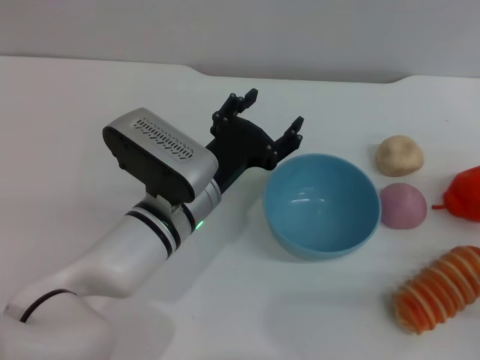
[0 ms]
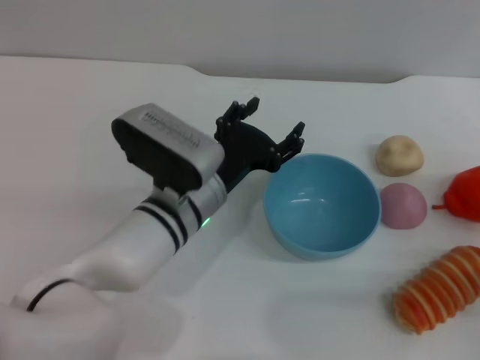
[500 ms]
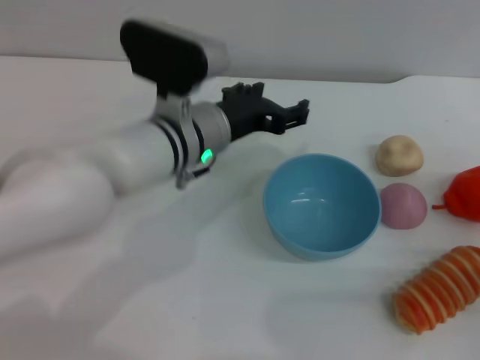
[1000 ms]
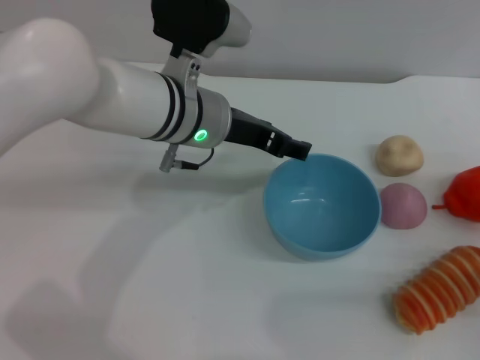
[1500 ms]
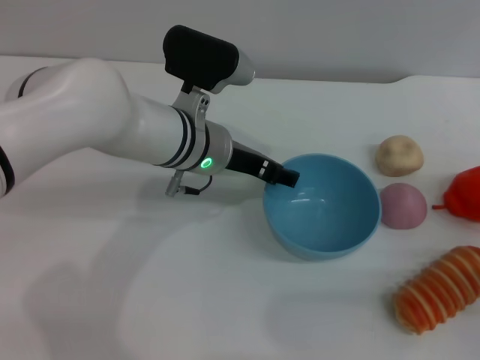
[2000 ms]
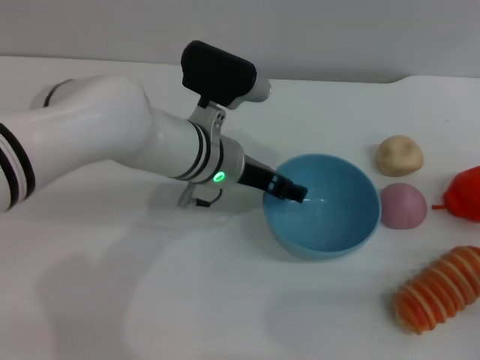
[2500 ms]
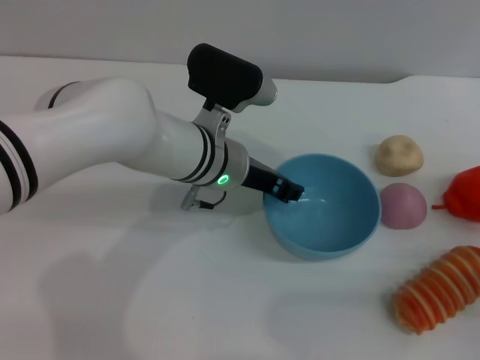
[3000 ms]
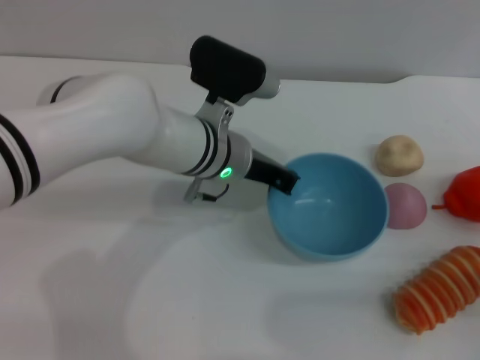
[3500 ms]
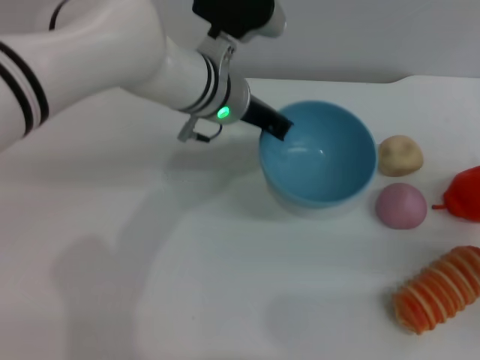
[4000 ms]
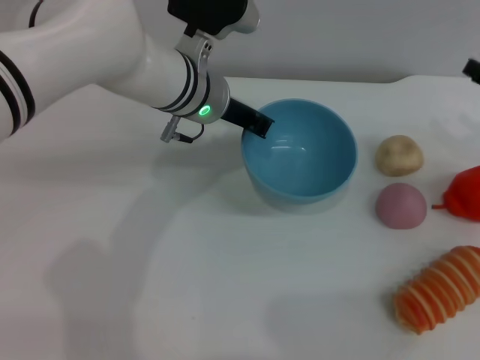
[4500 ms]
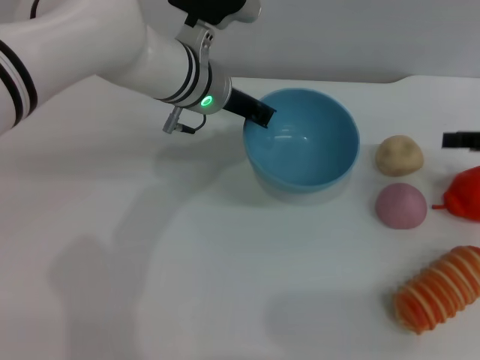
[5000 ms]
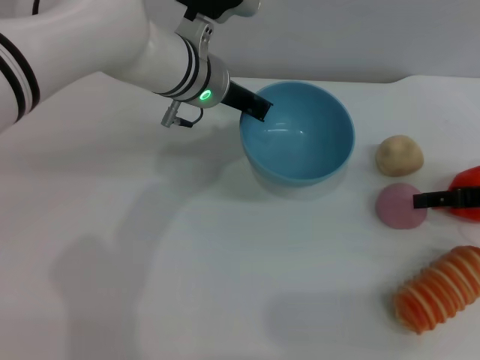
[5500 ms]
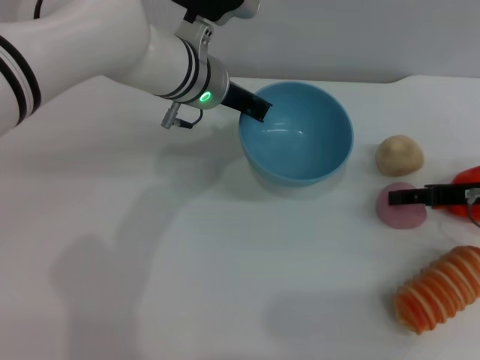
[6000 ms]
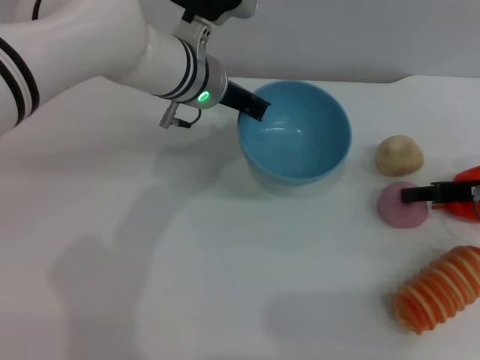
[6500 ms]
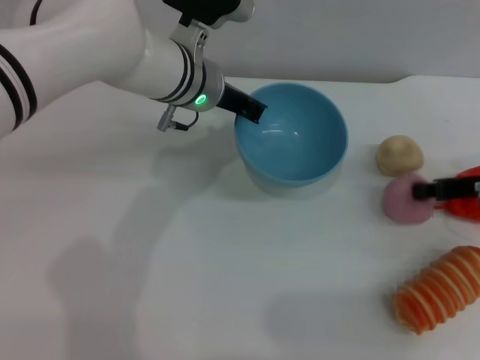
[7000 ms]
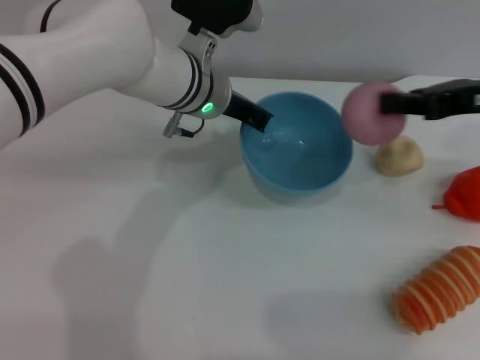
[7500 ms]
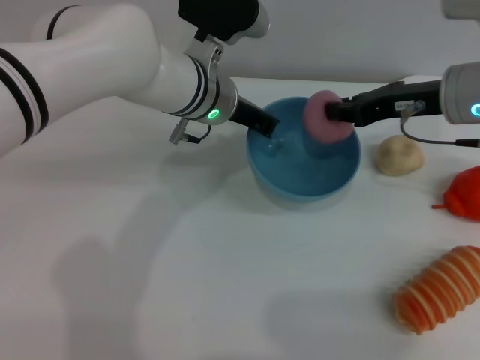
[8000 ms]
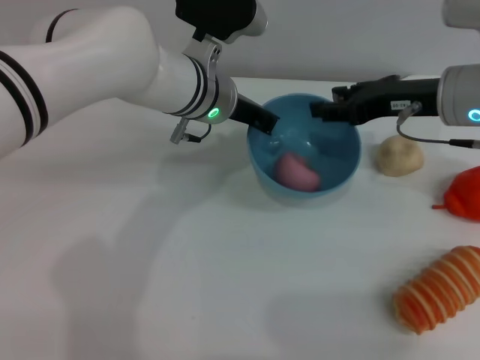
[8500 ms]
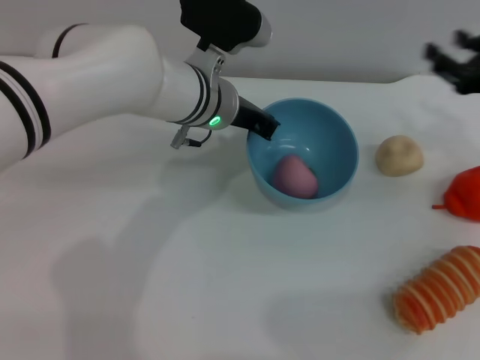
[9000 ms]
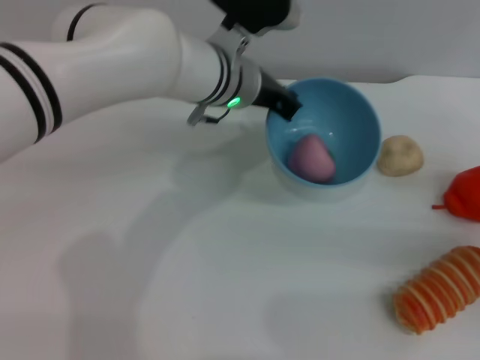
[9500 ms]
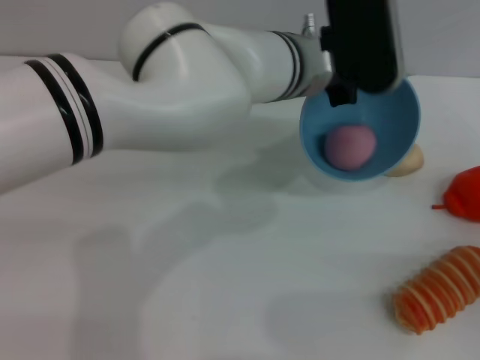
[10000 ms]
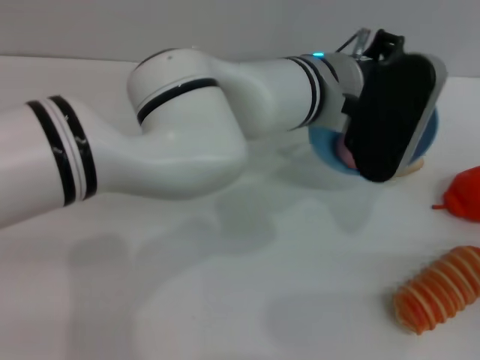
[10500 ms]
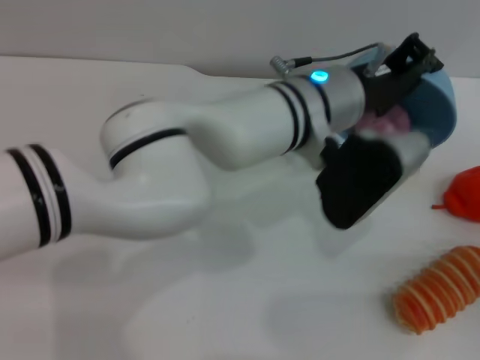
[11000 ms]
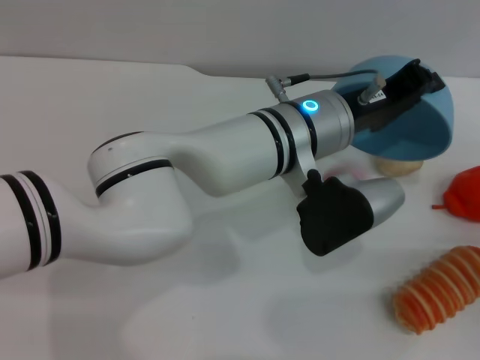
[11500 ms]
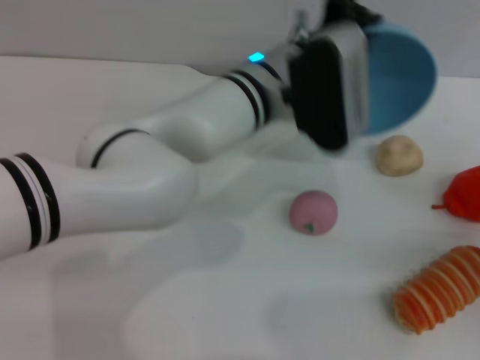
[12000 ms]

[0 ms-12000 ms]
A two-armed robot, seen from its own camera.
Task of the whole recording: put the peach into the blue bowl and pour it out repeatedly.
Step, 0 ms to 4500 ms: Pick up the bowl with the left gripper.
Step, 5000 ms to 7000 ms: Pick up the peach with the right gripper.
Step, 7500 ms to 8500 ms: Place the peach into the bowl.
Step, 9000 ms to 11500 ms: Pour the peach out of bowl.
0 ms to 2000 ms: The left gripper travels forward by some 10 cm.
2000 ms to 4000 ms: The left gripper changes place by some 5 cm, and closes up.
4000 ms to 6000 ms: The right gripper is displaced forward and upward by some 10 cm.
6000 ms to 8000 ms: The right gripper moves to the left and upward, about 10 cm, and closes up.
8000 ms to 10000 ms: The right gripper heads to the right, backward and downward, covering roughly 25 cm, and opens up. Meanwhile the left gripper heads to the right, covering some 10 cm.

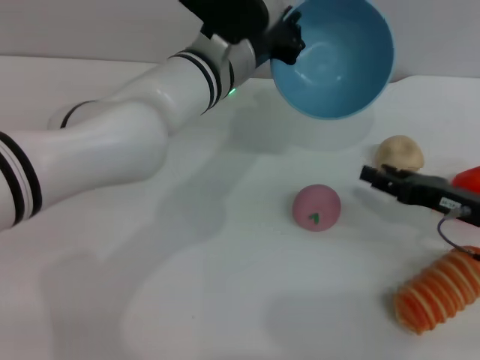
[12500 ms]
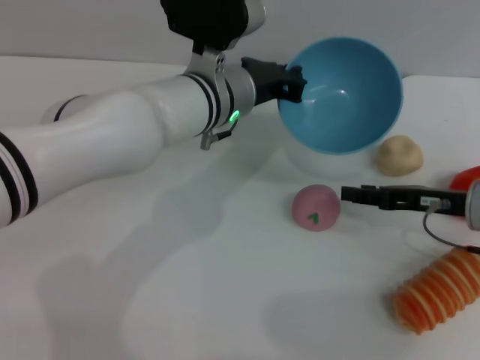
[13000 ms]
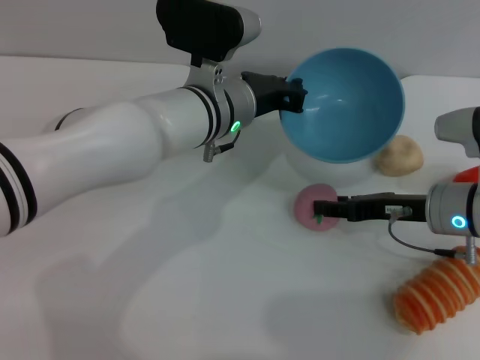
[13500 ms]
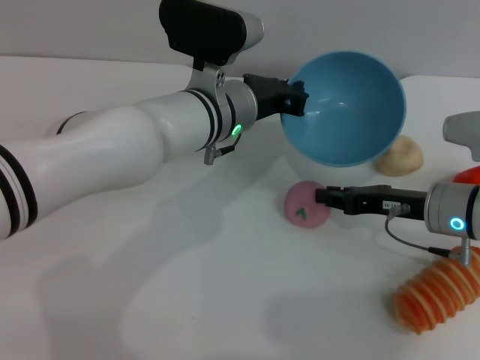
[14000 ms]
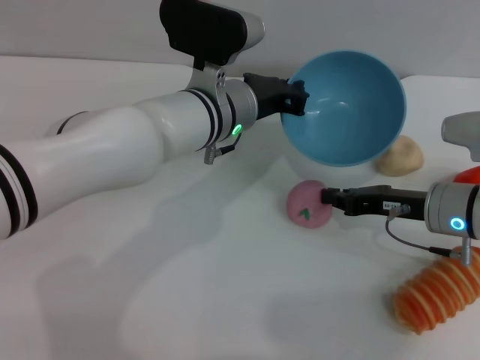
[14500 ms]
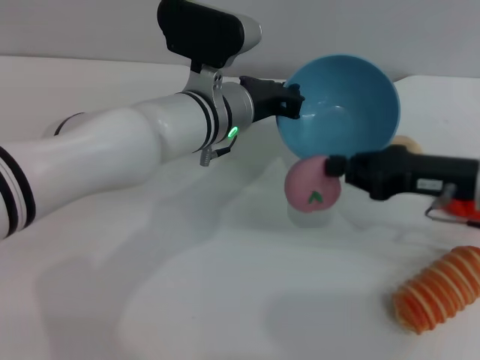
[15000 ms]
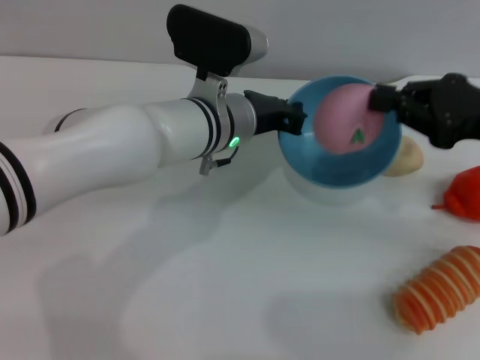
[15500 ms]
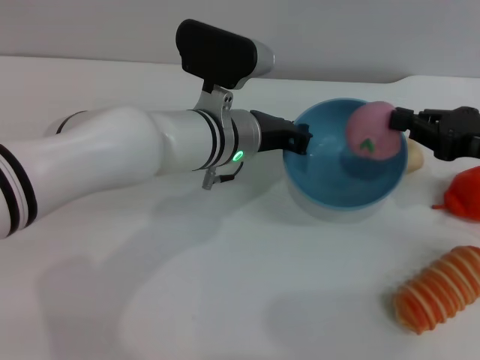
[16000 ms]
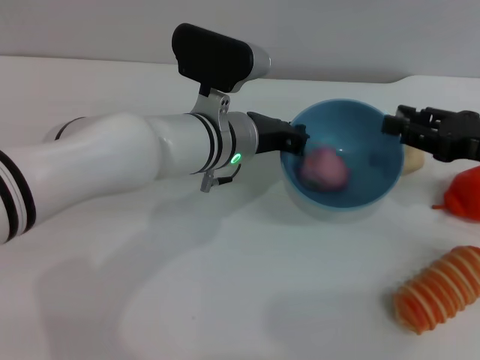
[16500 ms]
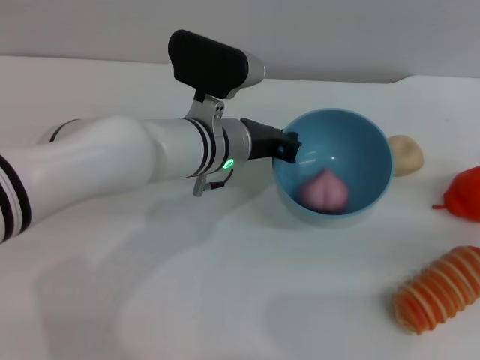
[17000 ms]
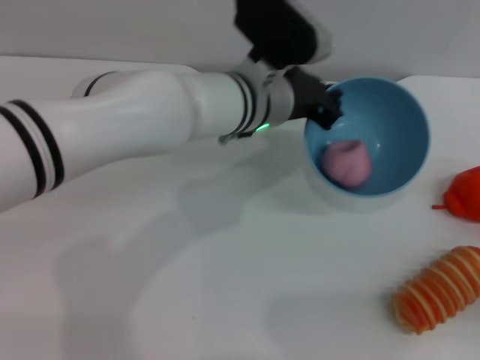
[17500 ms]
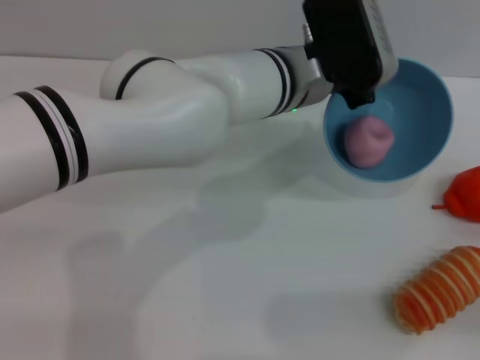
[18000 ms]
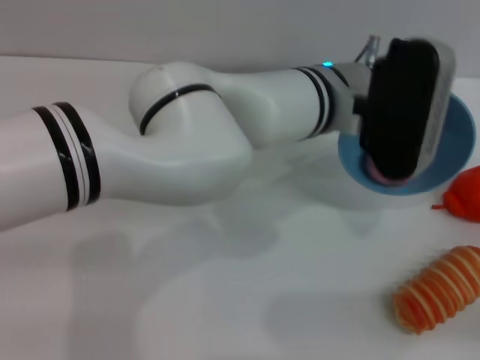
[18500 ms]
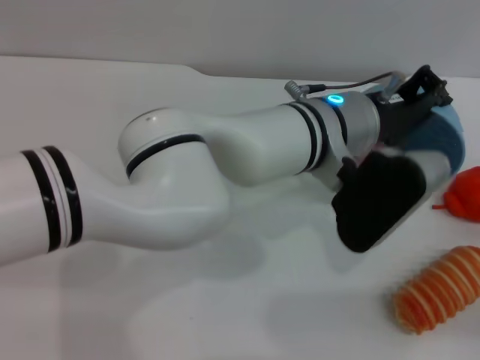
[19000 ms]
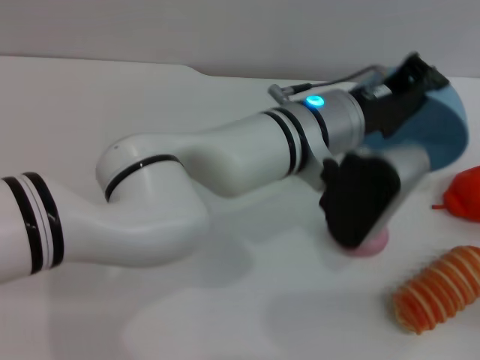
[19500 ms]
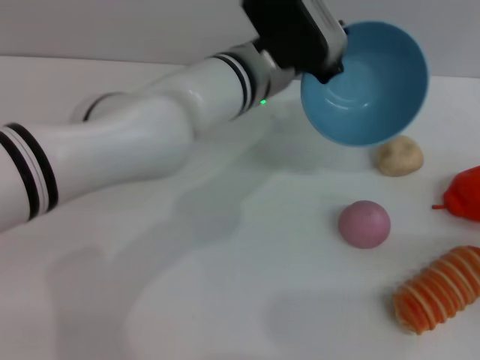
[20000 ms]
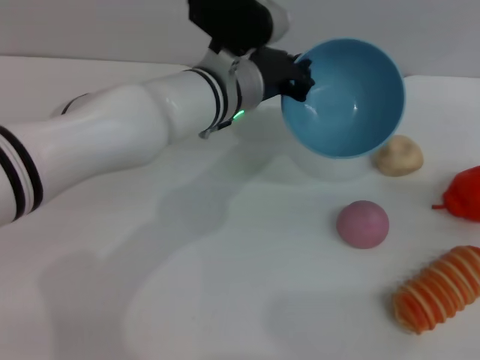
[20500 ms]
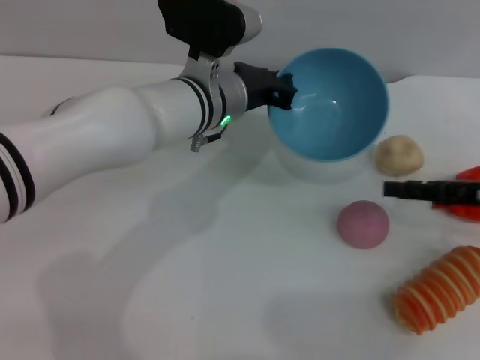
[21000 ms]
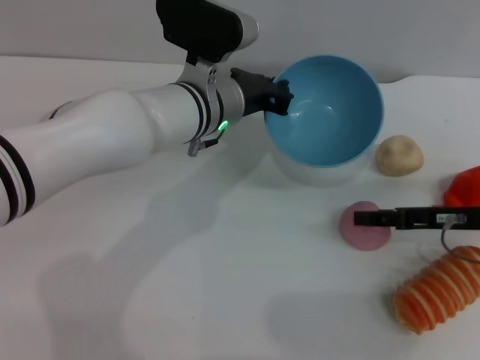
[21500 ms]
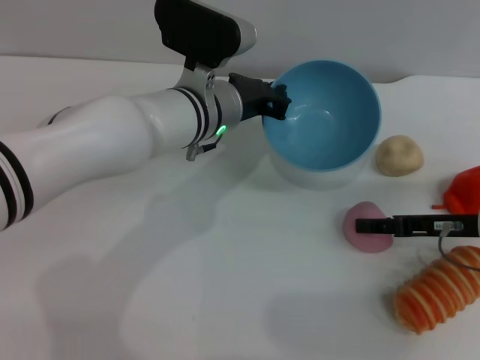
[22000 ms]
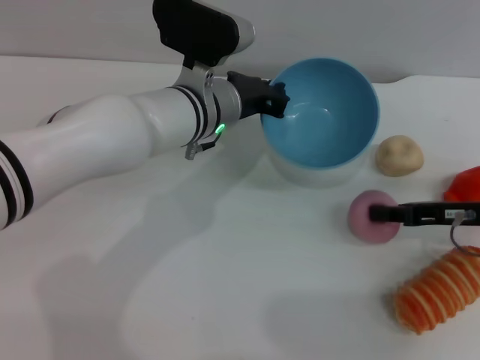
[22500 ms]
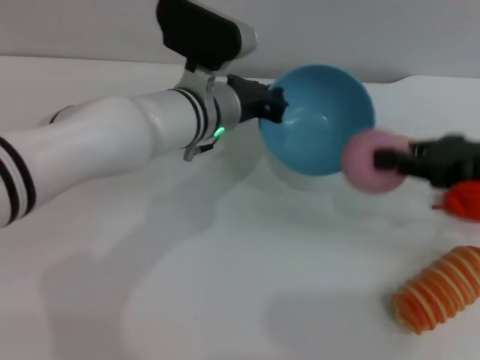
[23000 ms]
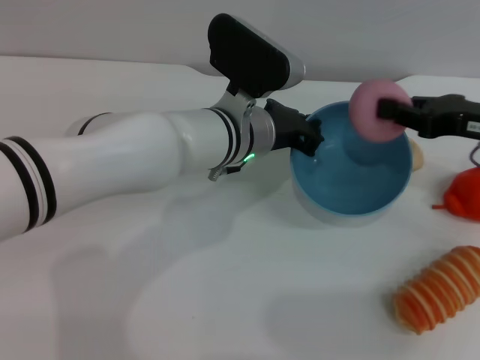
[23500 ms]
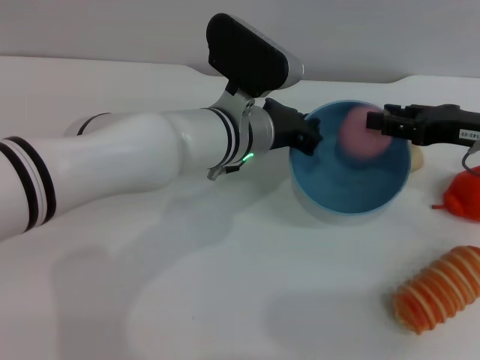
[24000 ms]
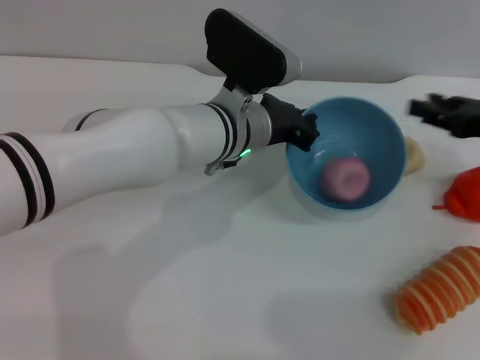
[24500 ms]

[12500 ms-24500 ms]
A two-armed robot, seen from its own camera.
Task of the whole recording: put the peach into the blue bowl and pour it out repeatedly.
Step, 12500 ms to 15000 ms: Pick up the peach with the right gripper.
Step, 15500 ms to 16500 ms: Place the peach into the bowl.
Step, 17000 ms to 19500 ms: Pour the peach out of bowl.
Step, 20000 ms to 22500 ms: Pick up the peach with the right gripper.
Step, 23500 ms to 24000 ms: Place the peach into the bowl.
12500 ms to 14500 ms: The right gripper goes some 5 cm to the left, and closes up.
14500 ms to 16500 ms: The right gripper goes roughly 10 cm upward and to the right.
16500 ms to 18500 ms: The right gripper shifts roughly 20 cm backward, downward and to the right, and opens its fingers. The left gripper heads to the right and upward, covering about 10 cm.
18500 ms to 20500 ms: The left gripper is displaced to the left by some 10 cm. The right gripper moves forward and upward, some 10 cm.
20500 ms to 22500 ms: The right gripper heads to the left, covering some 10 cm, and closes.
22500 ms to 24500 ms: The right gripper heads upward, covering roughly 5 cm.

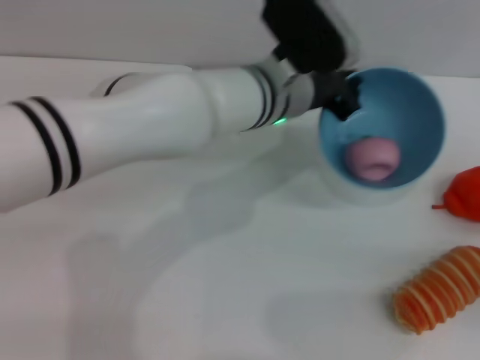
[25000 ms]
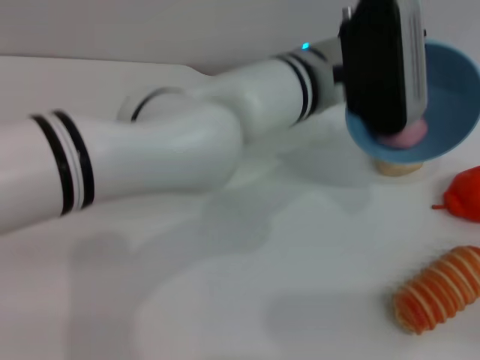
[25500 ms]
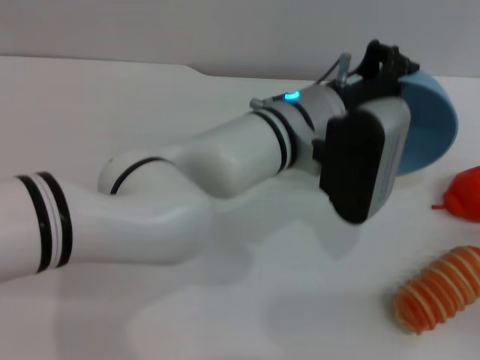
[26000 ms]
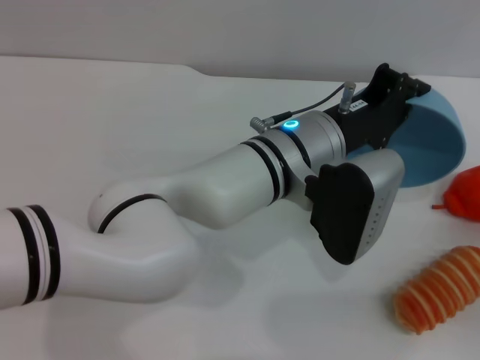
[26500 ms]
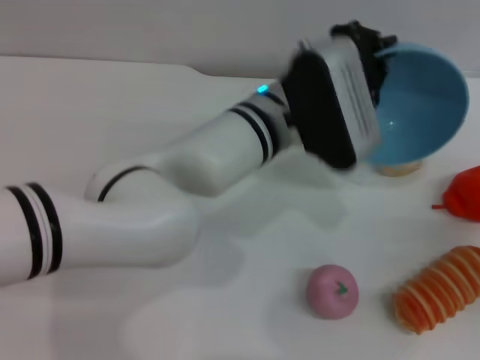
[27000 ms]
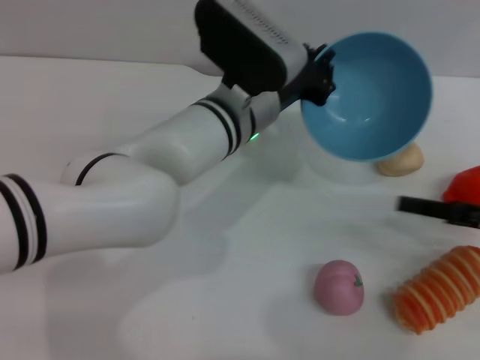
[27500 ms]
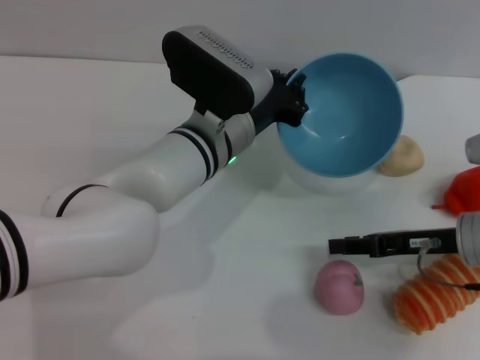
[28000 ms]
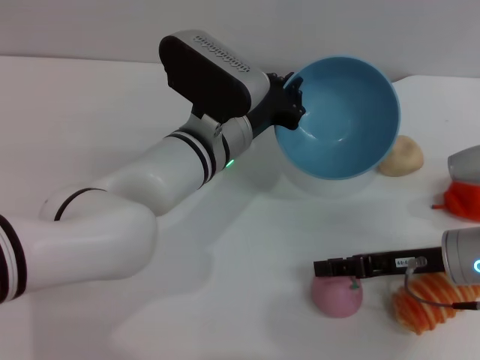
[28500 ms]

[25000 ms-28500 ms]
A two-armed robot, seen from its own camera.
Task of the whole recording: put the peach into the blue bowl and pour it out repeatedly.
Step, 25000 ms to 26500 ms: Pour the peach out of bowl.
27000 ms to 28500 ms: The left gripper shifts about 5 cm to the left. The right gripper goes approximately 15 cm to the left and forward.
